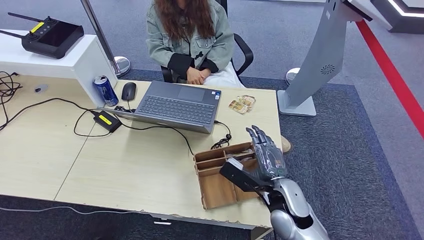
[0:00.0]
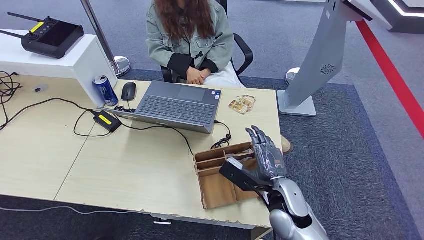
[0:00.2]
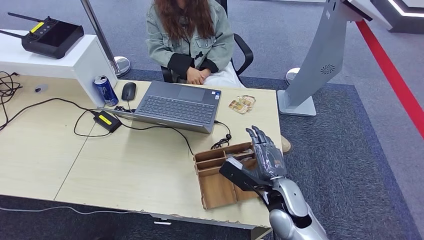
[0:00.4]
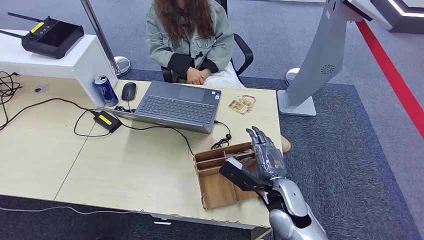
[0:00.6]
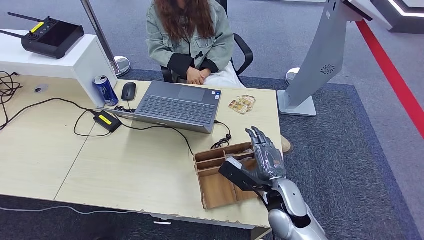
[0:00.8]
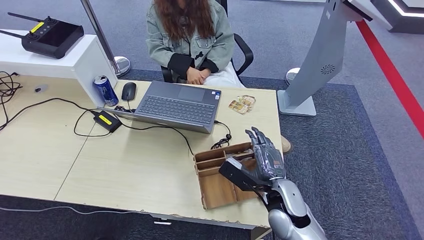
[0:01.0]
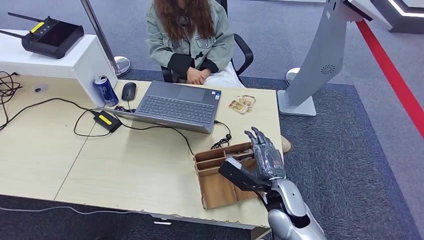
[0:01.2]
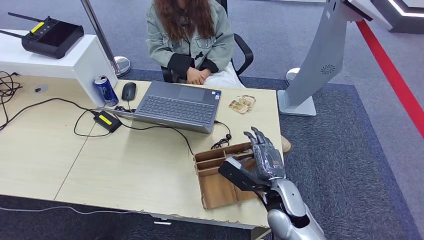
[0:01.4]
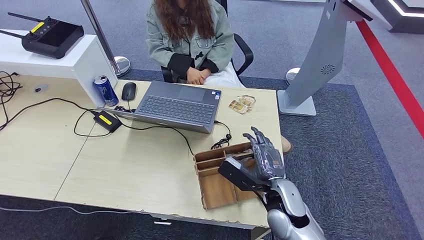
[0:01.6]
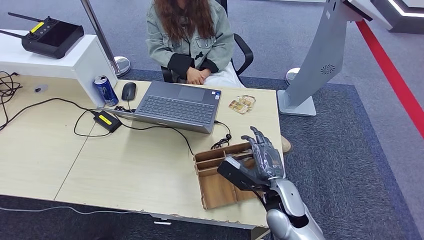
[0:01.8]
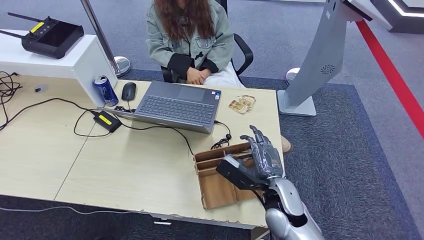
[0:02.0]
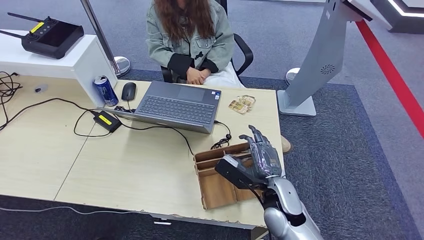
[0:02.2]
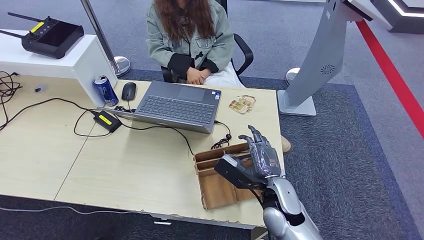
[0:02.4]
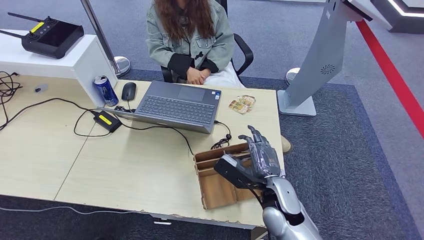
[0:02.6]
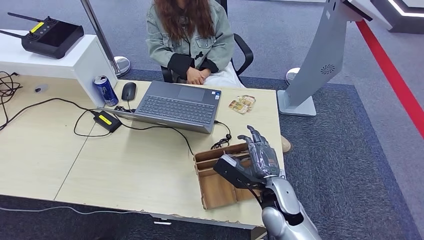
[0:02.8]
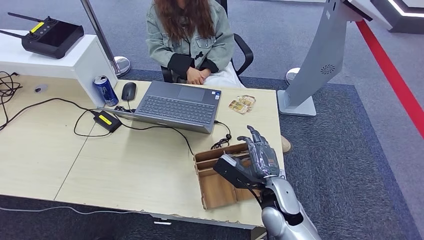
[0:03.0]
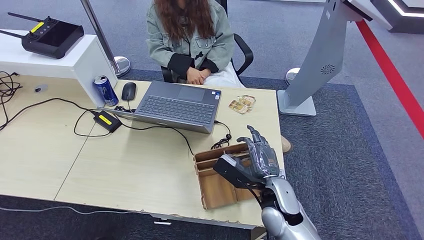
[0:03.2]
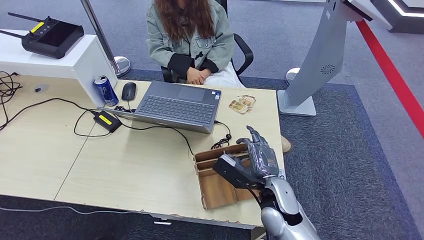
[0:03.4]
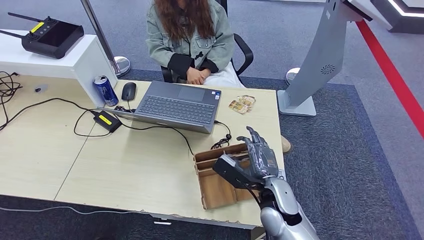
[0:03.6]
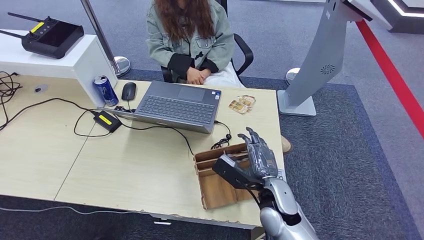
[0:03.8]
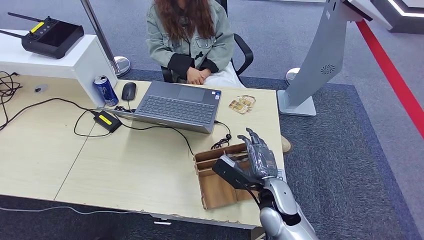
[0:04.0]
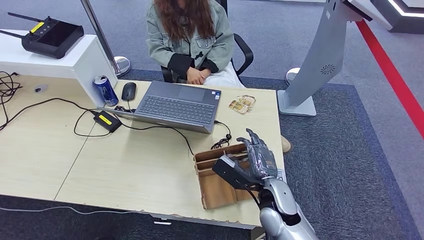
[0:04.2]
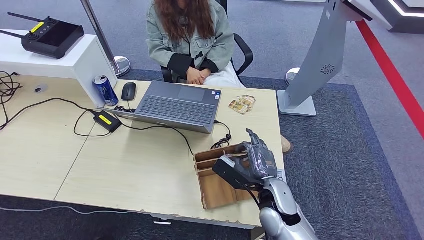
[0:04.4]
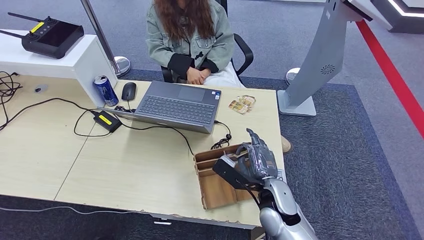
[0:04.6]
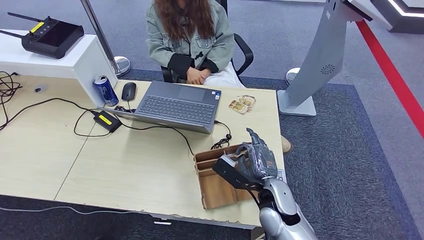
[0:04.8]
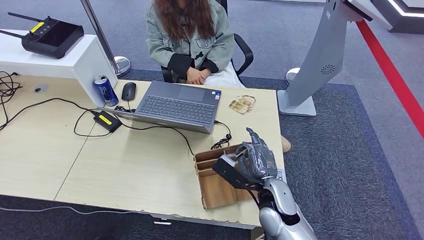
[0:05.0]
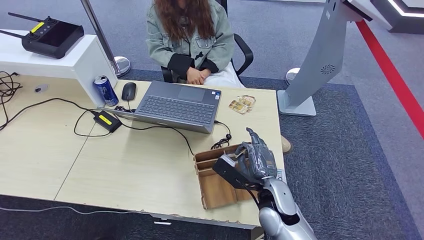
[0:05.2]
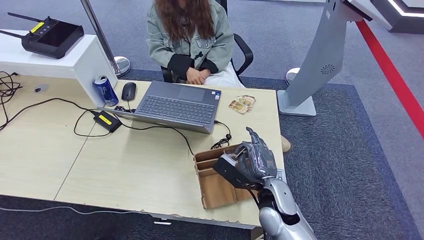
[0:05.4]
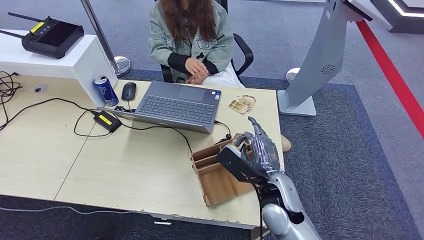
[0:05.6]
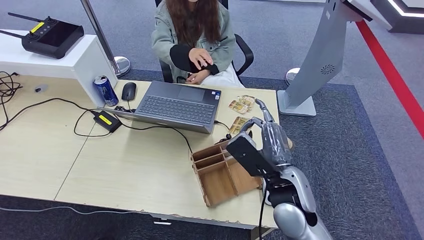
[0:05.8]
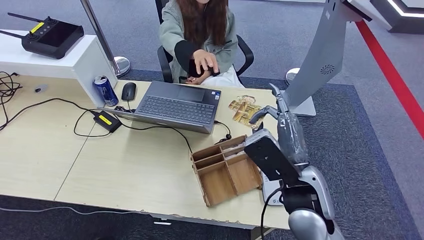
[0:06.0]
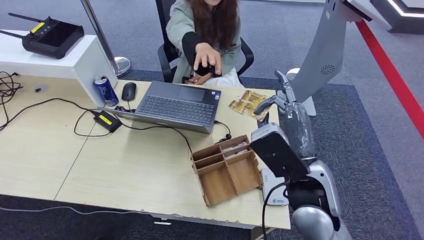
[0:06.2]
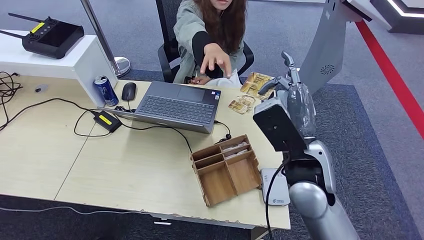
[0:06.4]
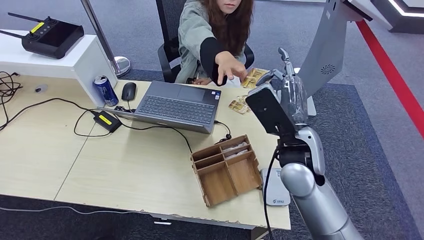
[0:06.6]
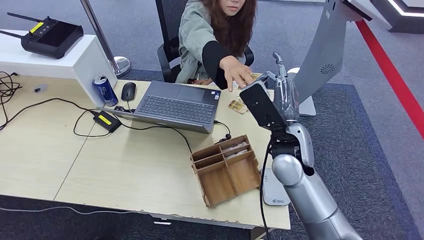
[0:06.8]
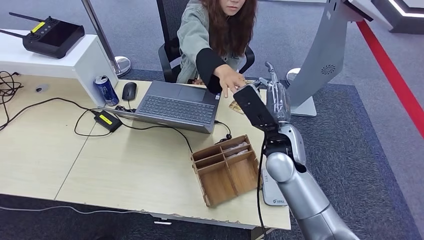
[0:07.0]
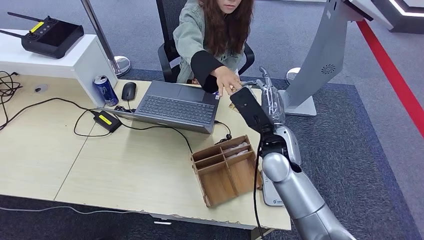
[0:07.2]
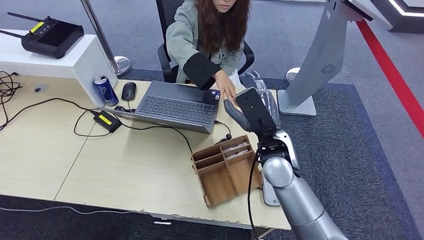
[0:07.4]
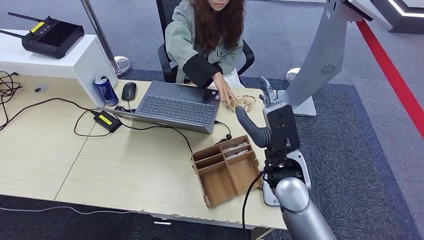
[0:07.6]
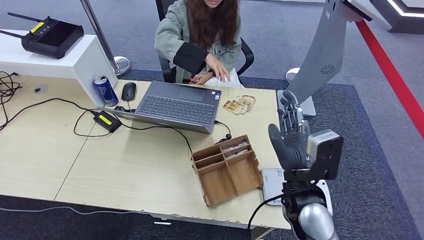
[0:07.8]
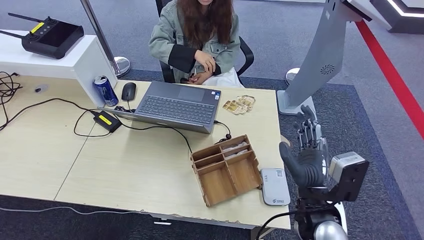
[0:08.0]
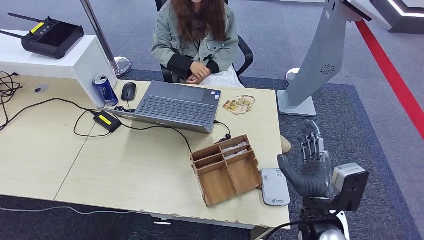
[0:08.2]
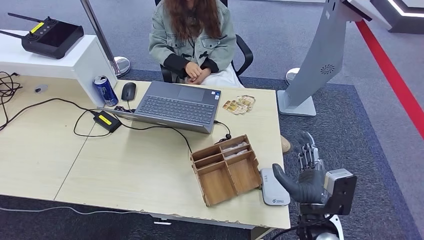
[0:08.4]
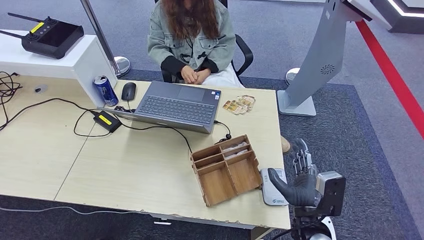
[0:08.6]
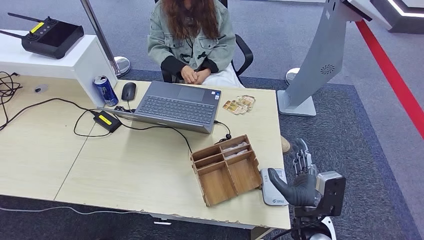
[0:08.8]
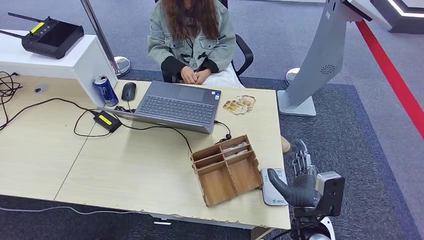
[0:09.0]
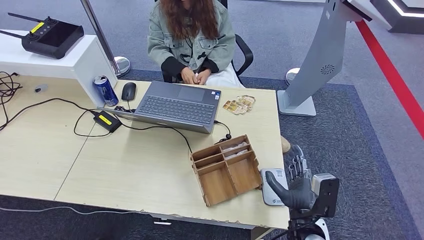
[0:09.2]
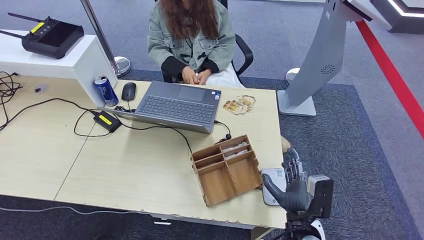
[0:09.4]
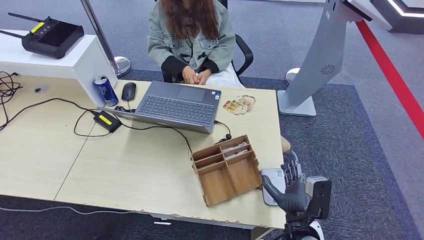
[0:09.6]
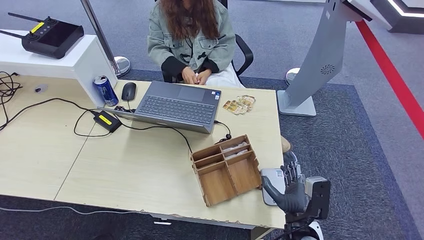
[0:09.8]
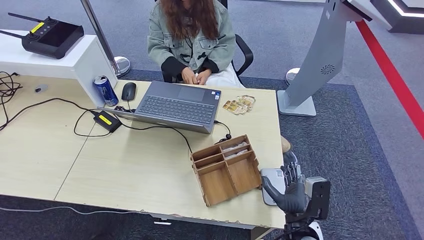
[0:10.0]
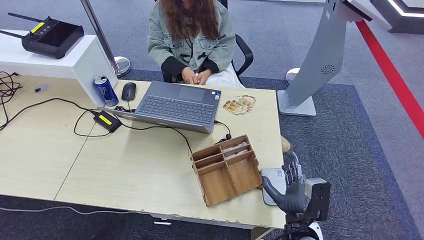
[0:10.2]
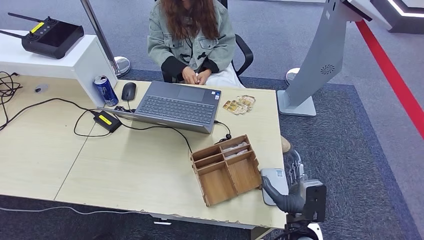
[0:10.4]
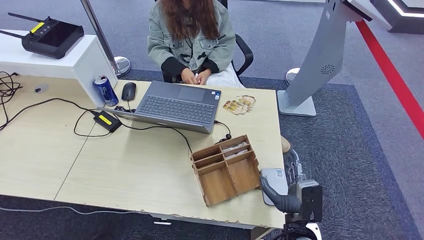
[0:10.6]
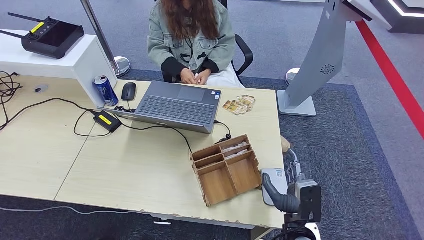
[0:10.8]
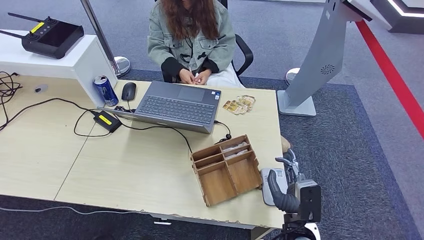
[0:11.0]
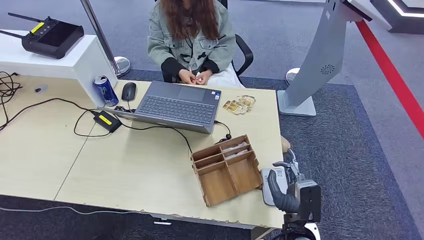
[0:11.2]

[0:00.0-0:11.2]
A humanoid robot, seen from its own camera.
Step, 0:00.0 to 0:05.8: Pick up the room key from the key card box.
Step, 0:06.0 to 0:11.0: Hand the room key to the person.
0:00.0 to 0:01.6: The two hands keep their place.
0:01.6 to 0:03.2: The hands move only a little.
0:03.2 to 0:04.8: Neither hand changes place.
0:04.8 to 0:06.4: The right hand moves upward, about 20 cm.
0:06.4 to 0:08.0: The right hand is displaced downward and backward by about 15 cm.
0:08.0 to 0:09.6: The right hand moves downward and backward, about 15 cm.
0:09.6 to 0:11.2: The hands move only a little.
